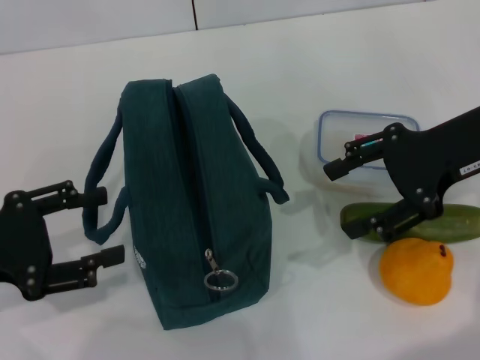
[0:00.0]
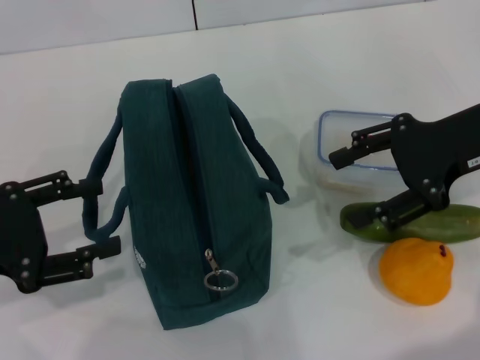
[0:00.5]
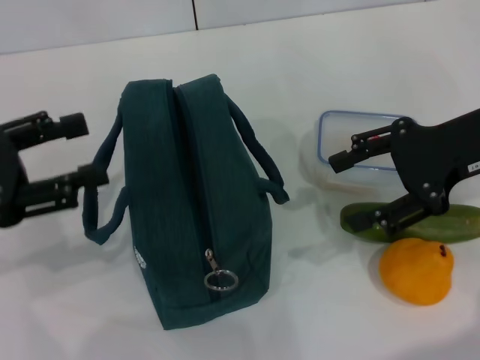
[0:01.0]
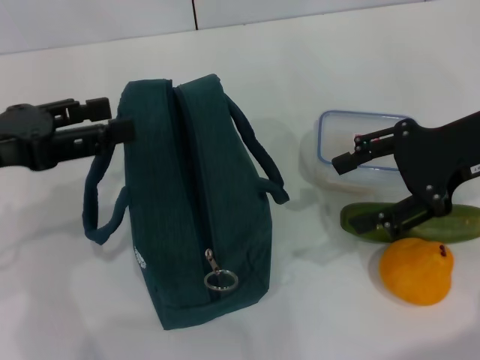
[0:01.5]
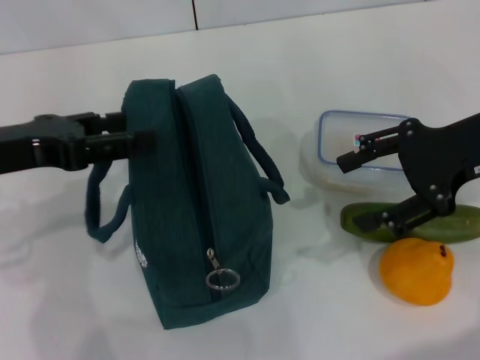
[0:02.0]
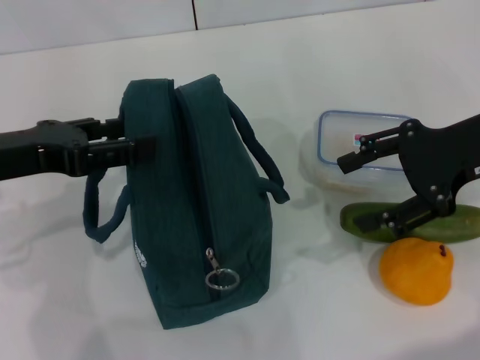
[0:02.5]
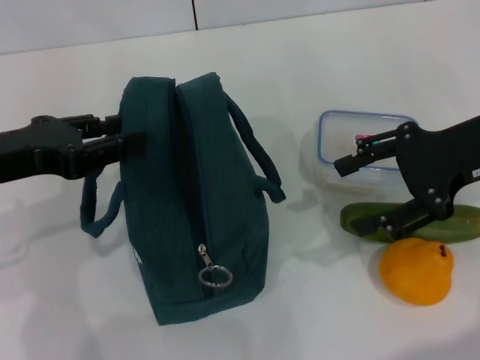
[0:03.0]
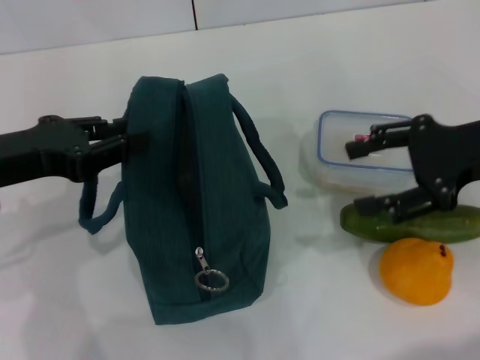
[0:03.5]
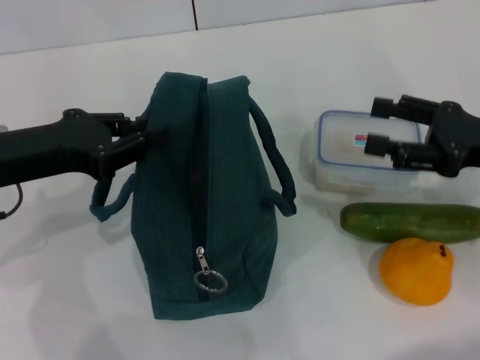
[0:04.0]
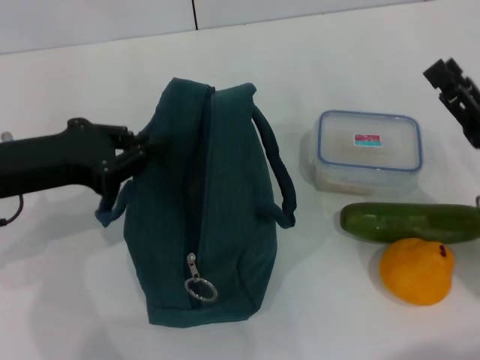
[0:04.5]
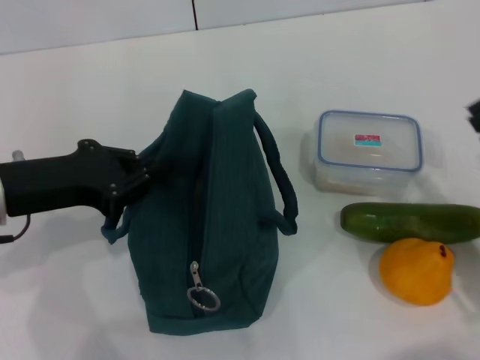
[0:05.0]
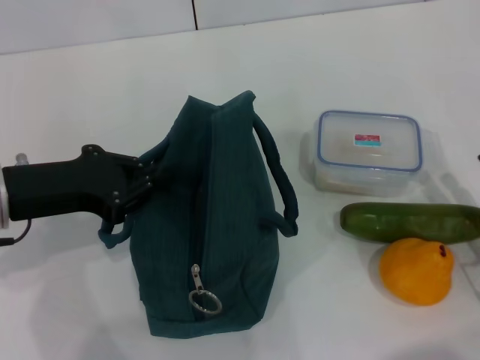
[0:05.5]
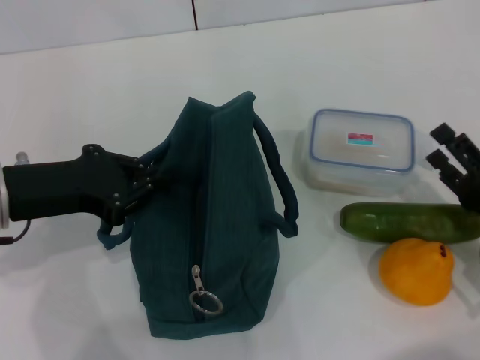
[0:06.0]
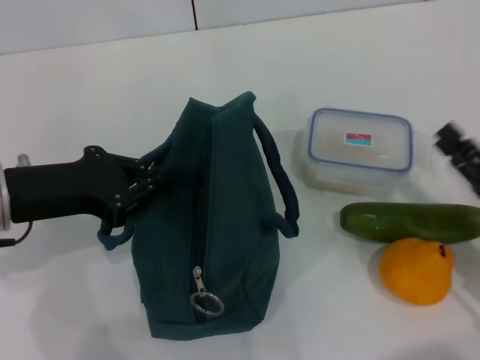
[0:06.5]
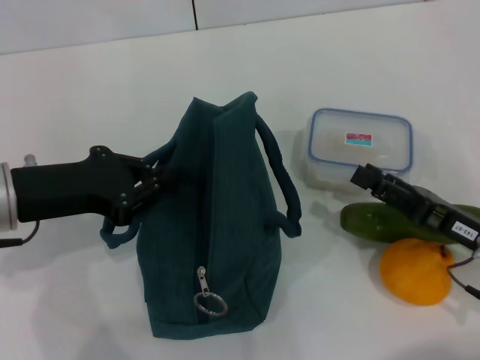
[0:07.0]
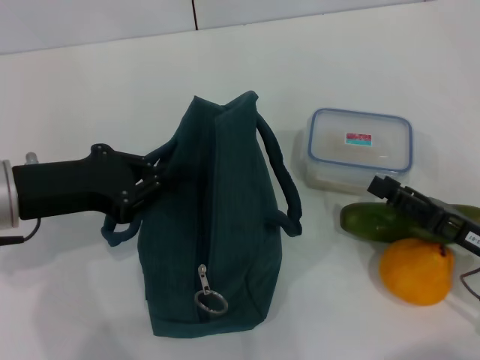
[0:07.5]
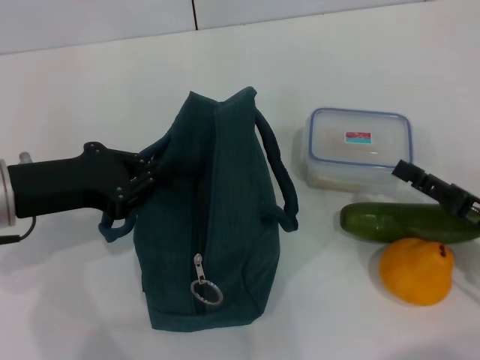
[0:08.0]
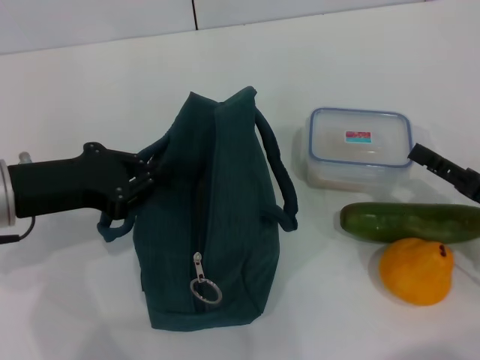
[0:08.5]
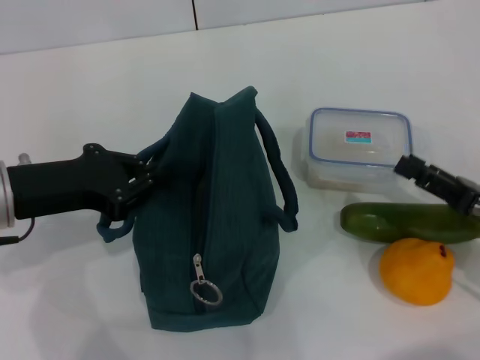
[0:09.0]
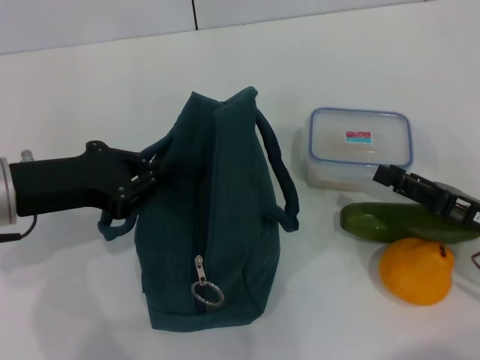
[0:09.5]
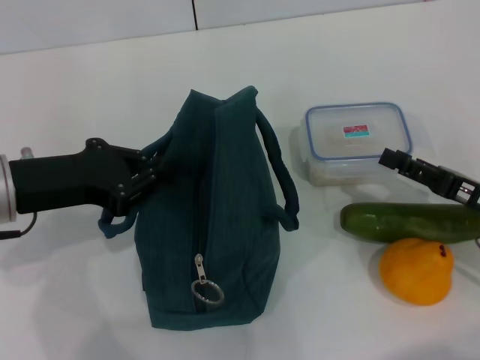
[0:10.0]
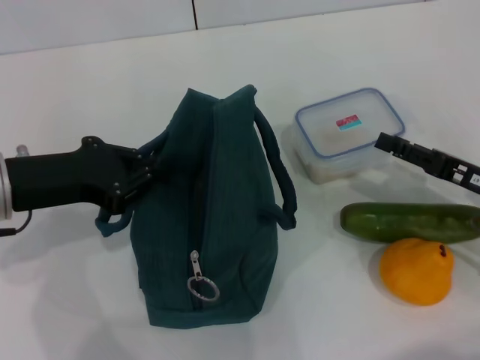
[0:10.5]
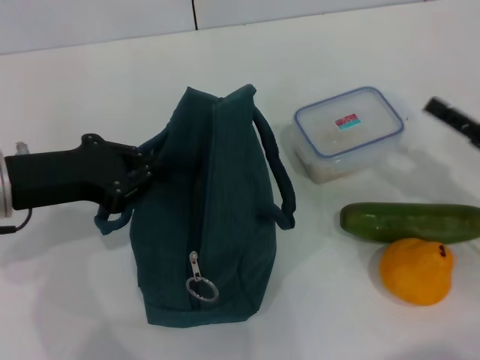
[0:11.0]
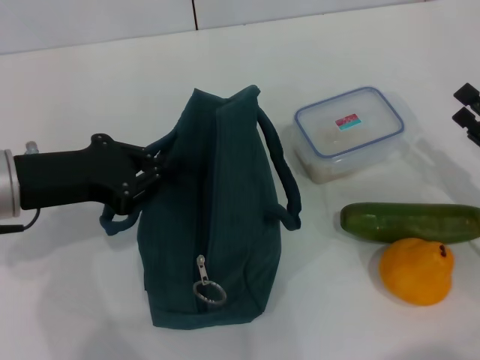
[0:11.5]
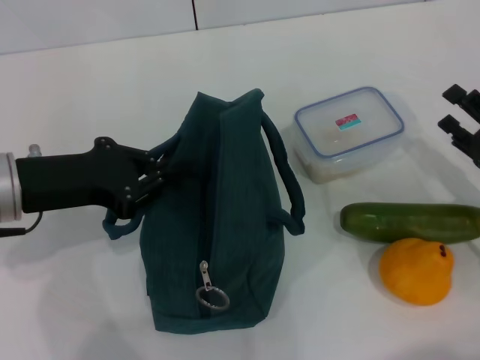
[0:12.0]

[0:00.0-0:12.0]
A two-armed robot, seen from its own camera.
Step, 0:00.0 to 0:03.0: Hold the lunch bag with your left hand.
0:00.0 to 0:02.0: The left gripper moves forward and upward, approximately 10 cm.
0:02.0 to 0:04.0: The right gripper goes roughly 5 cm downward, while the left gripper closes up.
0:04.0 to 0:06.0: The right gripper heads downward and backward, covering some 15 cm.
0:08.0 to 0:10.0: The grippers make only small movements.

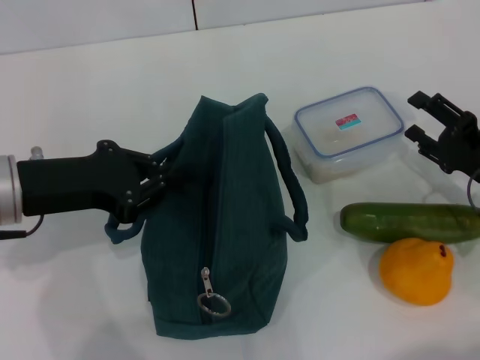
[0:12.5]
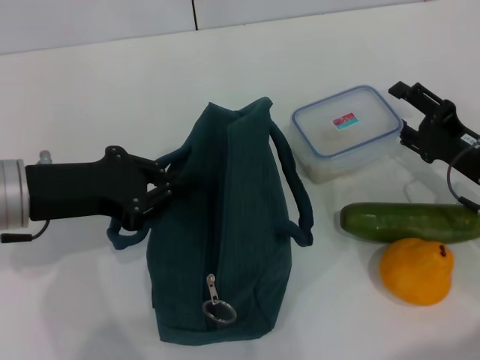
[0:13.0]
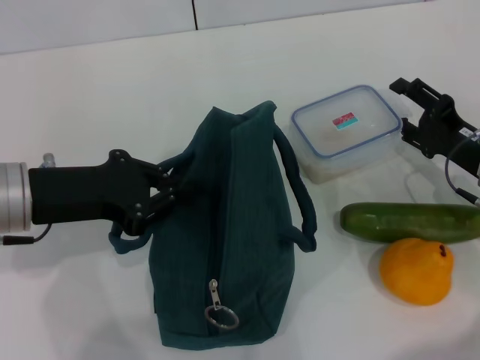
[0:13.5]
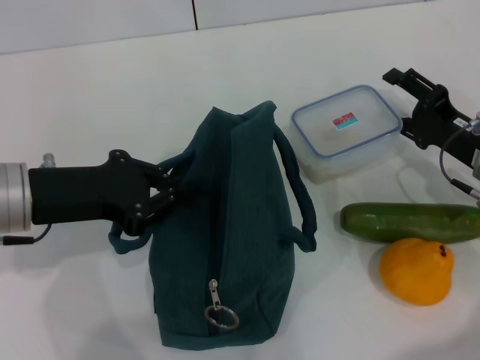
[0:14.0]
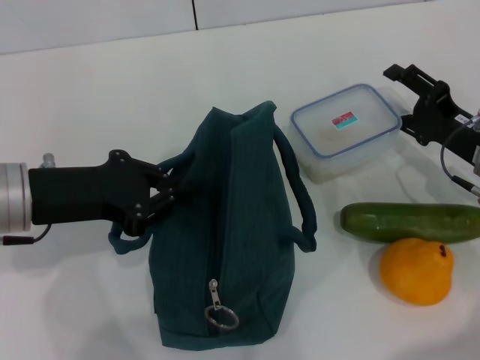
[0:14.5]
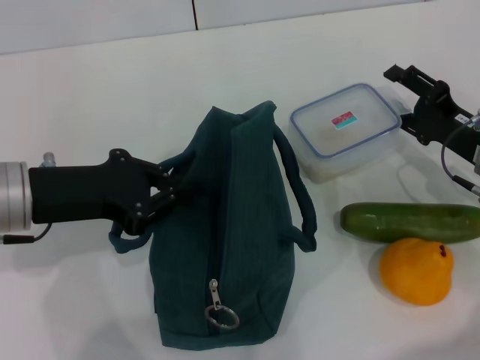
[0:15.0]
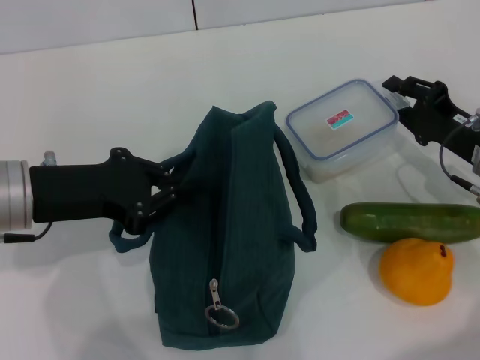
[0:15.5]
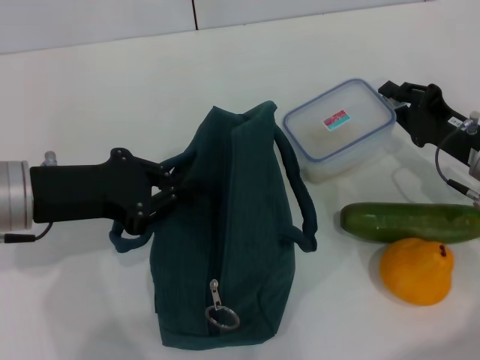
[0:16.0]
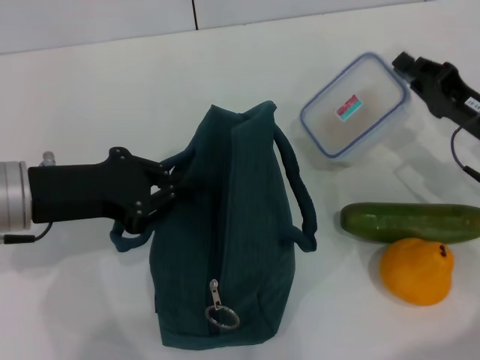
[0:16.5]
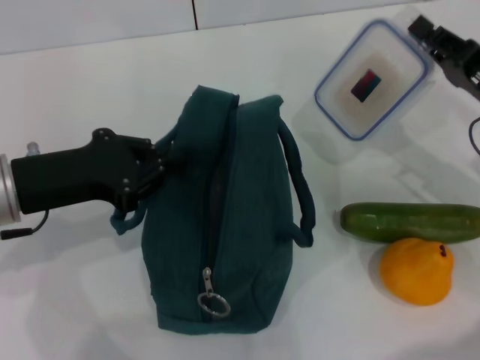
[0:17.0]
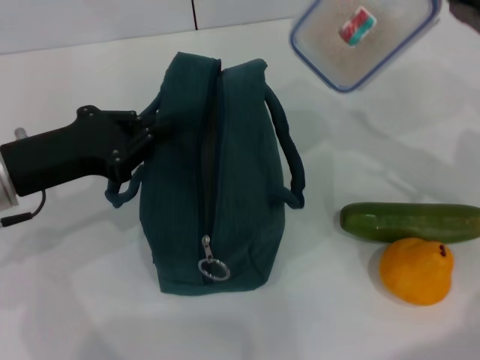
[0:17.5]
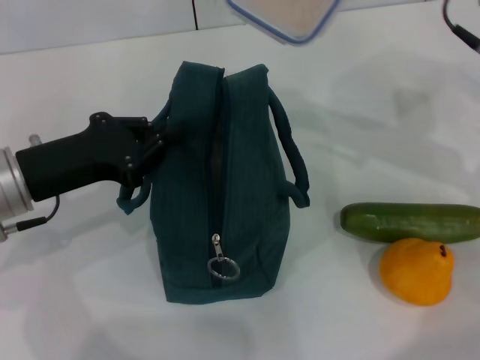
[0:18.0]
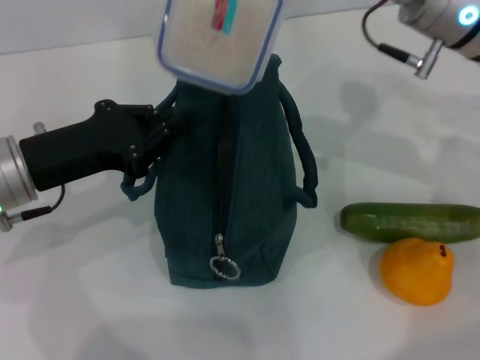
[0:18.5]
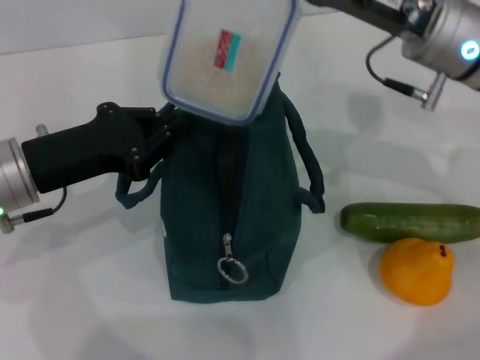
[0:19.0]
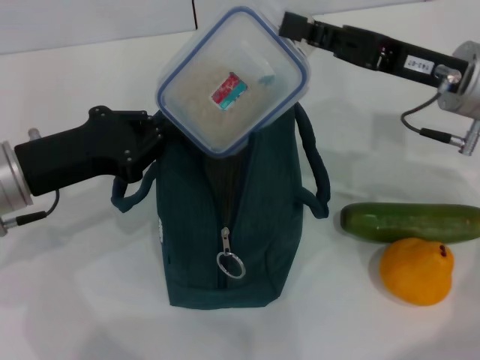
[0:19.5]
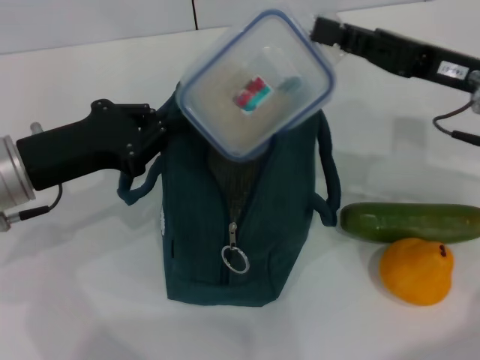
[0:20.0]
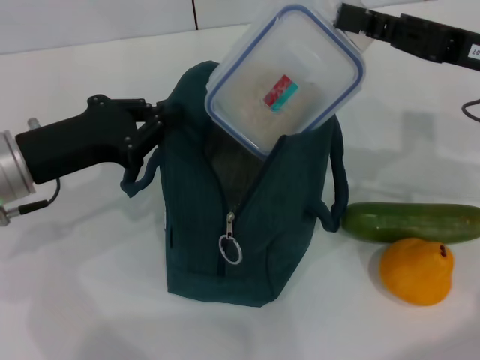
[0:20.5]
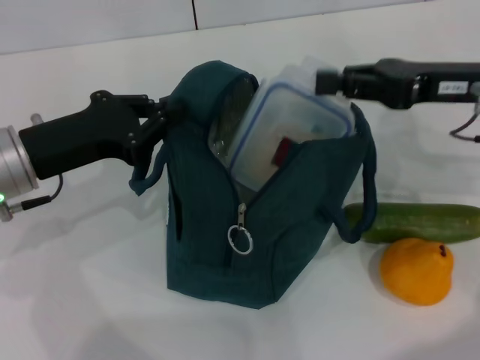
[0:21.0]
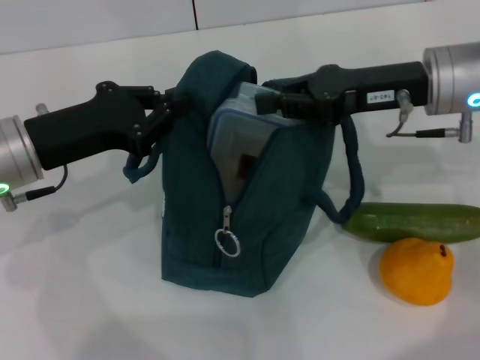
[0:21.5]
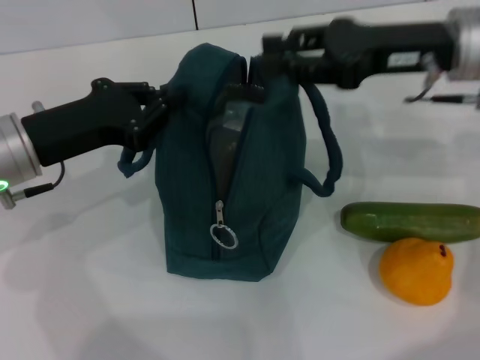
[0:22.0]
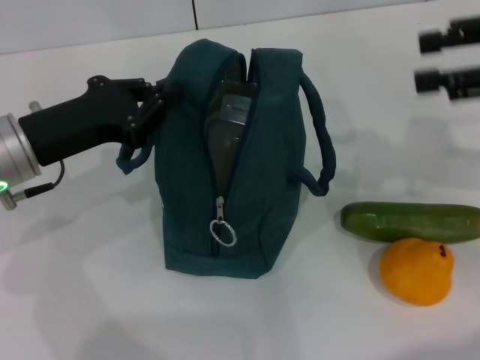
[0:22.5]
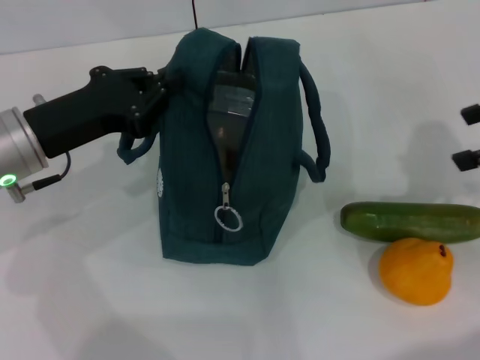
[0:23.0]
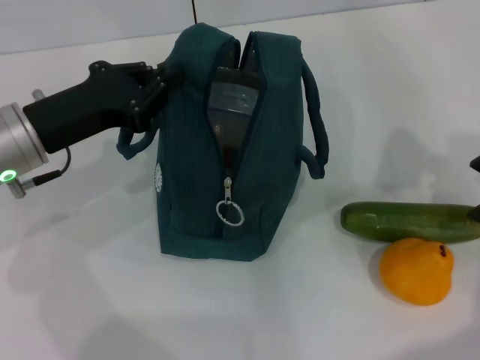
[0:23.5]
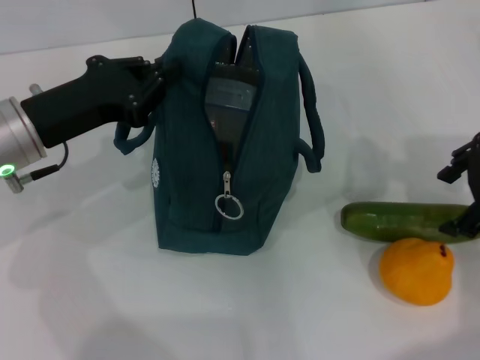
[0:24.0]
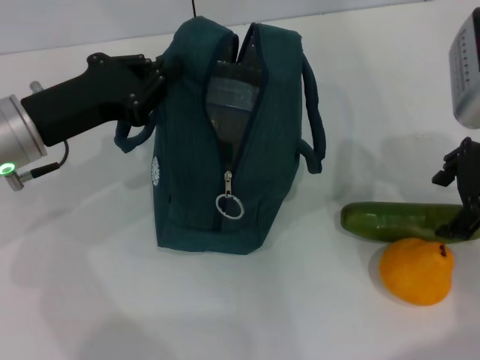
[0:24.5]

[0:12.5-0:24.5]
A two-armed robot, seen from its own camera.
Step, 0:12.5 to 0:16.0: Pick up the lunch box with your right hand.
Step, 0:16.5 to 0:22.0: Place the lunch box into the lunch bag with your right hand.
0:12.5 to 0:14.5: The grippers move only a little.
0:14.5 to 0:16.5: The right gripper closes its fingers.
0:16.5 to 0:18.5: The right gripper is displaced upward, to the left and forward by approximately 20 cm.
0:18.5 to 0:20.5: The right gripper is displaced to the right and backward by approximately 10 cm.
0:20.5 to 0:22.5: The right gripper heads upward and to the right, covering approximately 10 cm, and opens its fingers.
0:22.5 to 0:24.5: The right gripper moves to the left and downward, some 10 cm.

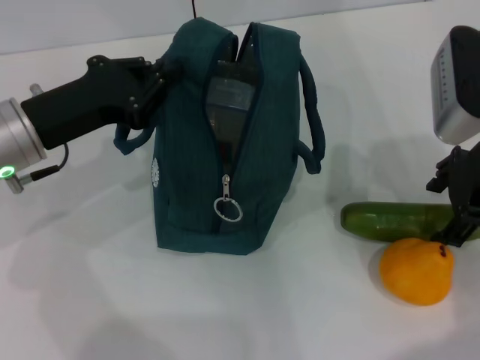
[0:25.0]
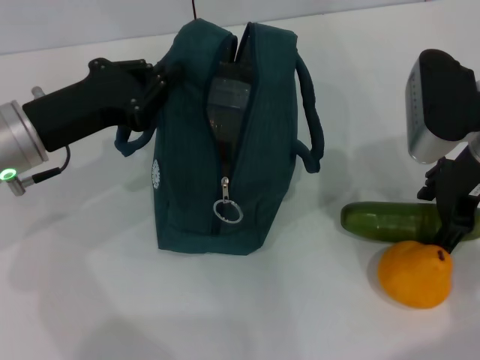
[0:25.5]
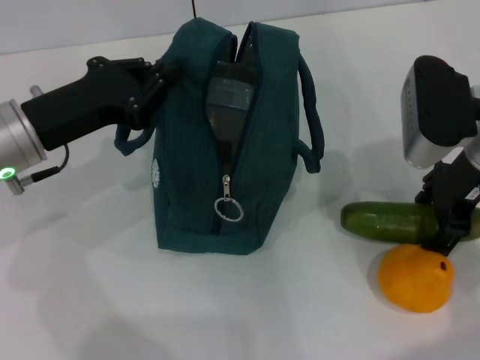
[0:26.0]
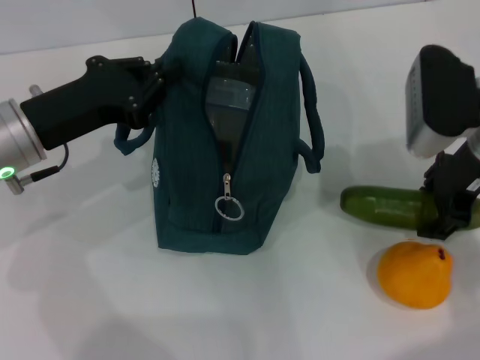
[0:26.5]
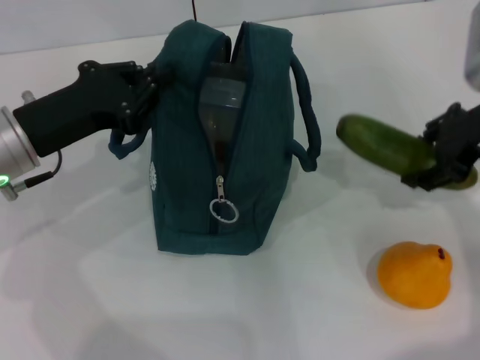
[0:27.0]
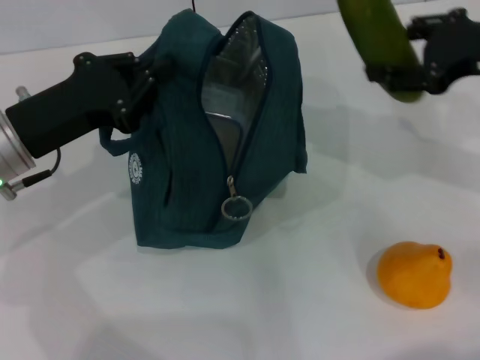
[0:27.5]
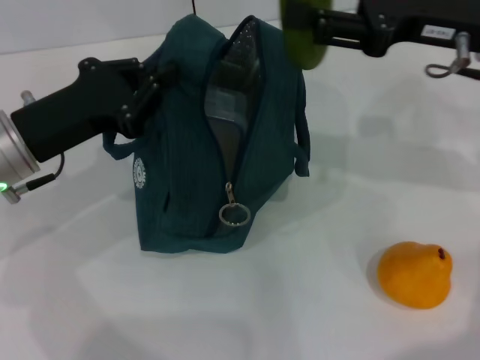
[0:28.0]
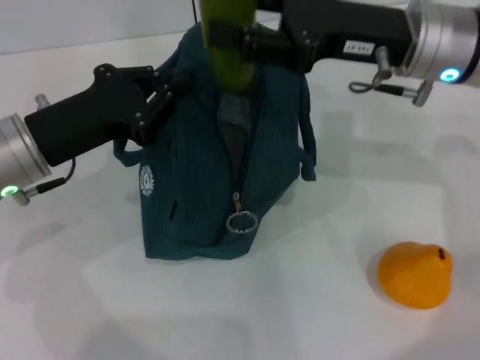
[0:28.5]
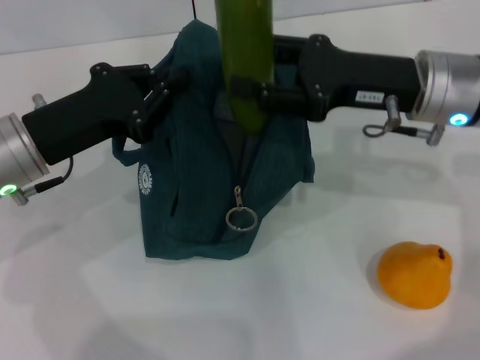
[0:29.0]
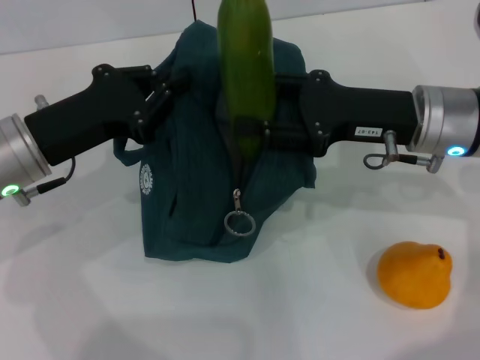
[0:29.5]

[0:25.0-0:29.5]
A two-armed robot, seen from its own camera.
0:25.0 to 0:27.0: The grippers make only small movements.
0:27.0 to 0:29.5: The right gripper goes some 10 cm to the left and downward.
